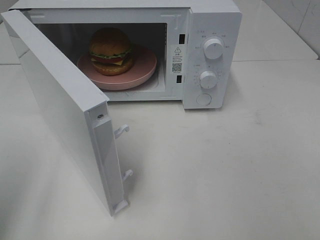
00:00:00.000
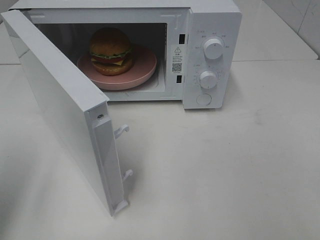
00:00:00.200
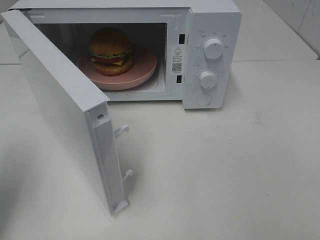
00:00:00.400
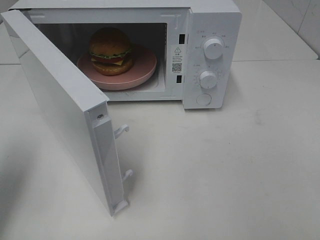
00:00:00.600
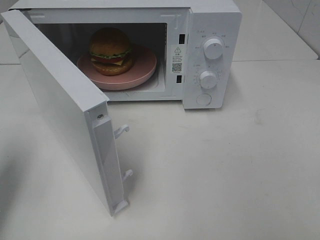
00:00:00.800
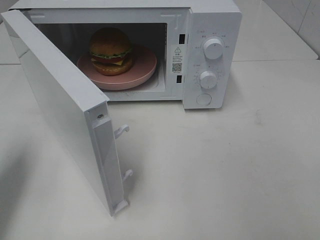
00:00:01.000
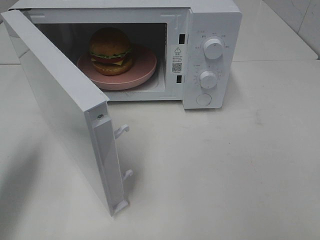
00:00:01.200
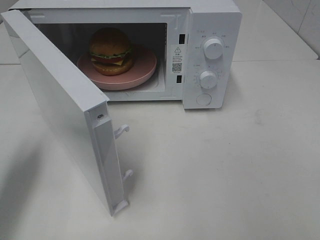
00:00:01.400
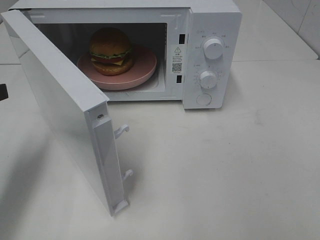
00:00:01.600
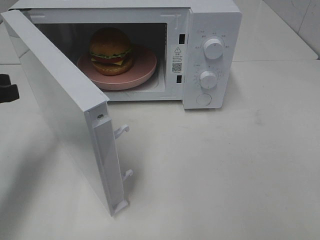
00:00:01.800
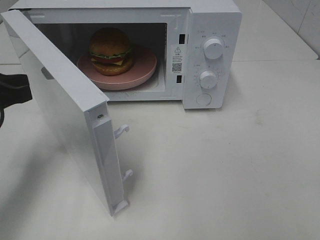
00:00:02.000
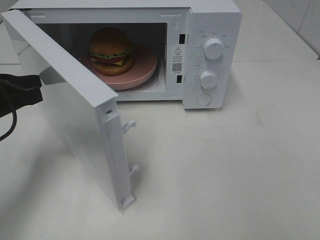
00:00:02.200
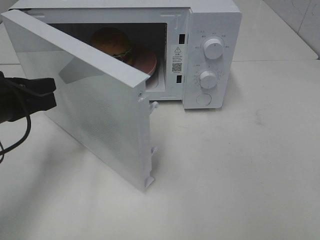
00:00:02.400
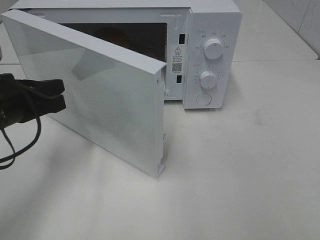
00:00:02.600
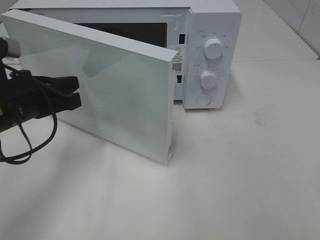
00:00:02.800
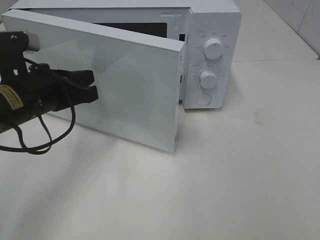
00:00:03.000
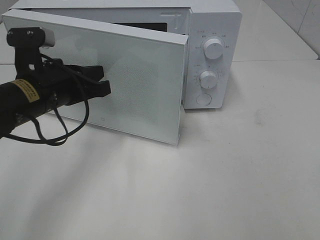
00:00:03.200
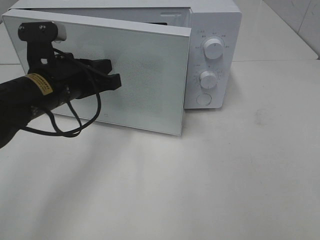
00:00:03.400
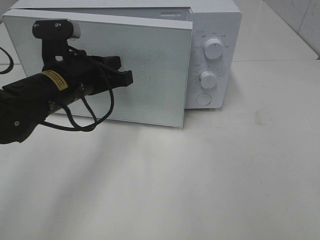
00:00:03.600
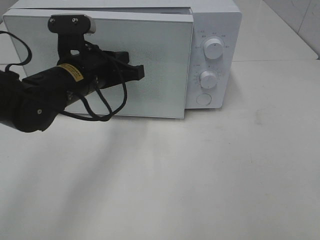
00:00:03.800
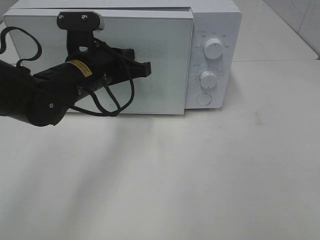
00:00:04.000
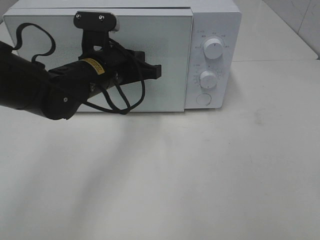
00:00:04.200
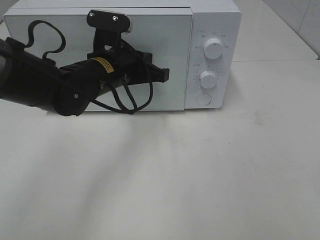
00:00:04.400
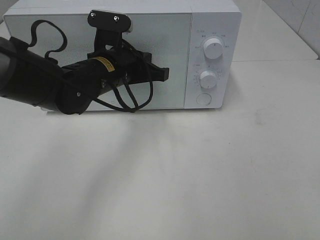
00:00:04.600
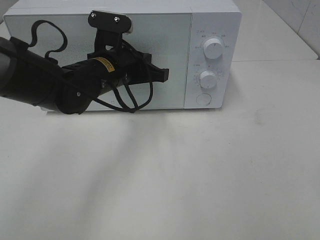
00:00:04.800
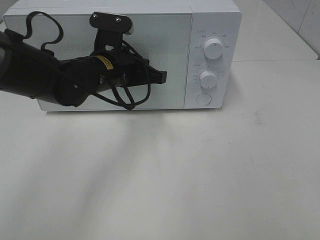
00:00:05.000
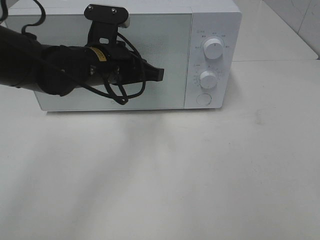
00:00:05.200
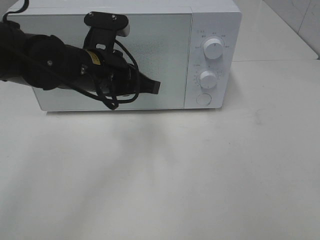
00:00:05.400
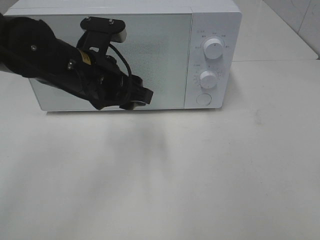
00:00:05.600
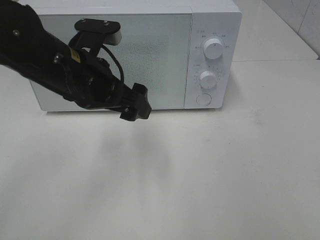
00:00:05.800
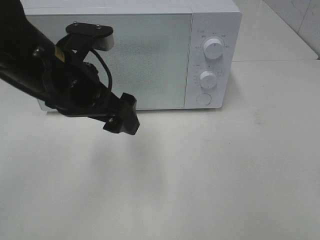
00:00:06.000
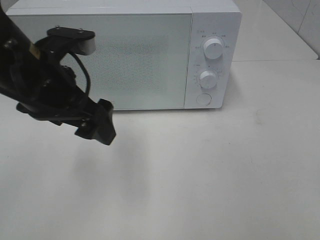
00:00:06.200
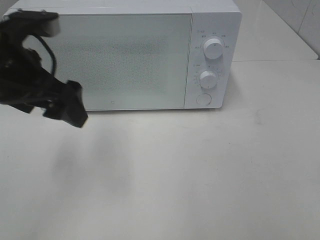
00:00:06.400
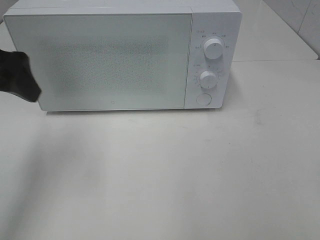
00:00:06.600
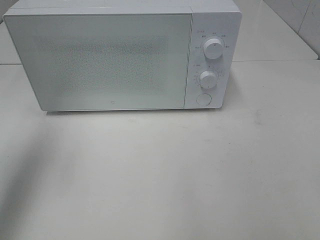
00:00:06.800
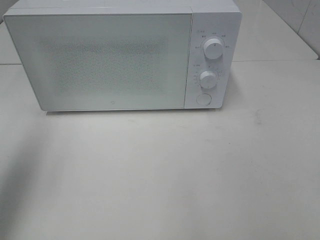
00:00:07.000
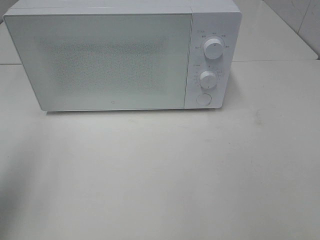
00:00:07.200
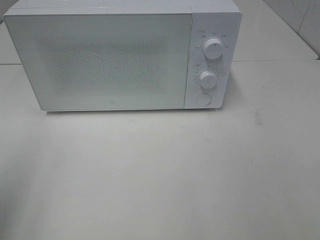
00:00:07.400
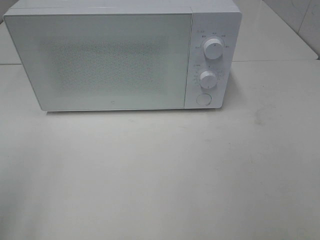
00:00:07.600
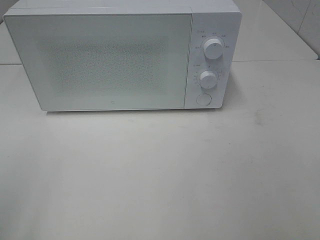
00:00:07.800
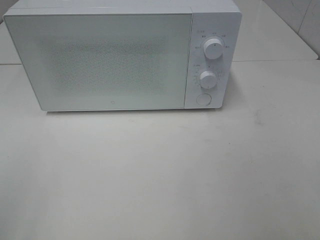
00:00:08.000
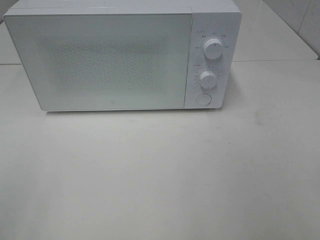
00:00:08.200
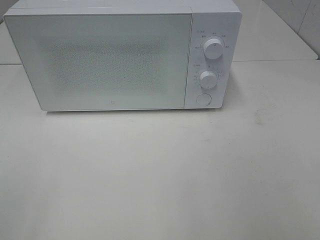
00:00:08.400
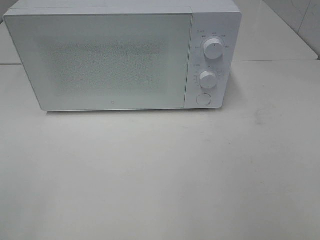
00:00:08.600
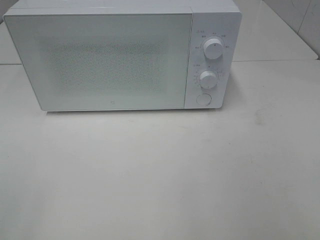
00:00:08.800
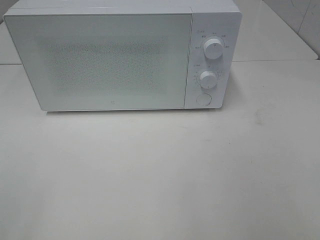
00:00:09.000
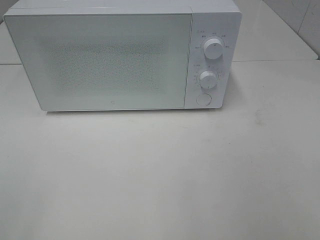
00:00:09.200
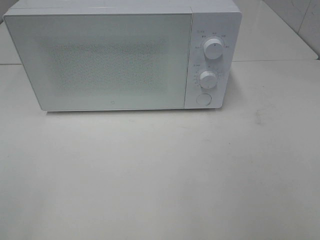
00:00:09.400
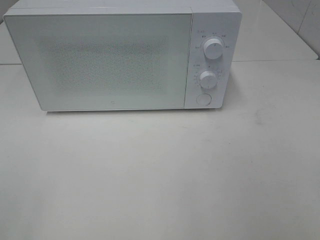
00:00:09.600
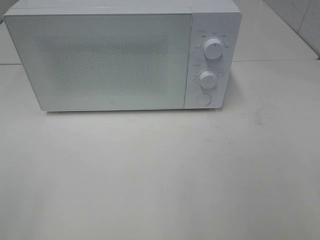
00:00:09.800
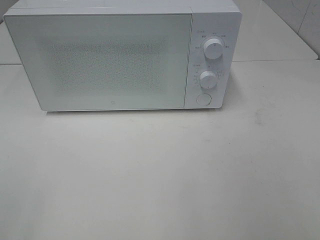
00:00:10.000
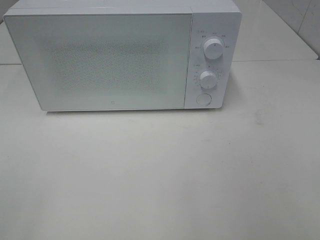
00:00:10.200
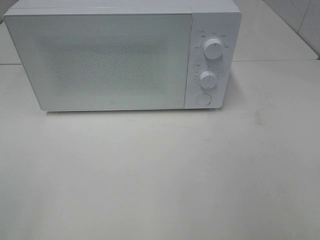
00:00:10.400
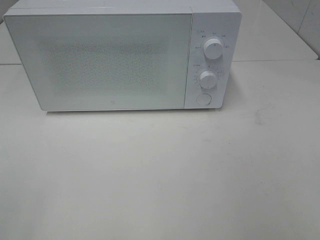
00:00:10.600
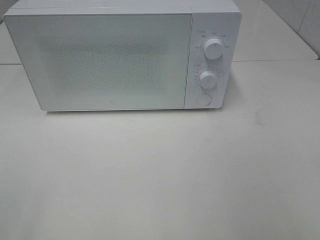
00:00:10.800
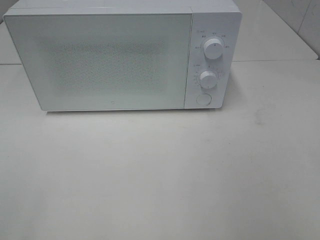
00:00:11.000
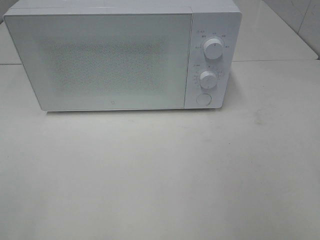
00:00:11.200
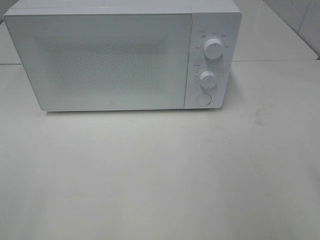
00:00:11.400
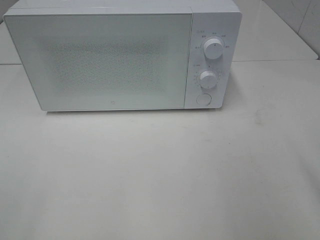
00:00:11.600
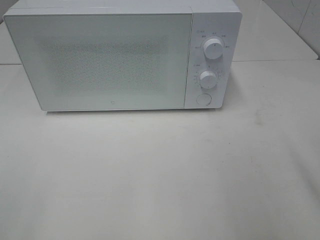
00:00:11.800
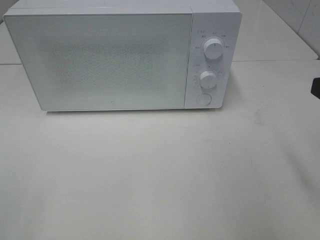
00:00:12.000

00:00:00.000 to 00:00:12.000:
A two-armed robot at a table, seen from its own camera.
Task of the whole recording: Heat the burger.
Step, 00:00:00.000 to 00:00:05.200: Left hand: close the microwave door.
00:00:00.000 to 00:00:01.600: The left gripper goes roughly 15 cm forward and downward, and closes its fingers.
00:00:01.600 to 00:00:03.000: The left gripper shifts some 10 cm to the right.
00:00:03.000 to 00:00:04.400: The left gripper shifts roughly 15 cm to the right and forward.
00:00:04.400 to 00:00:06.000: The left gripper heads backward and upward, covering roughly 10 cm, and opens up.
00:00:06.000 to 00:00:07.600: The left gripper shifts about 25 cm to the left and backward.
00:00:09.000 to 00:00:10.400: Neither gripper changes place.

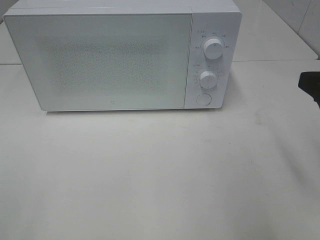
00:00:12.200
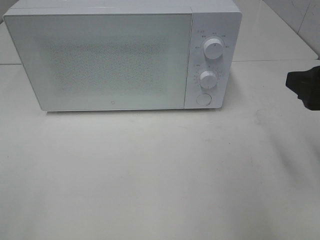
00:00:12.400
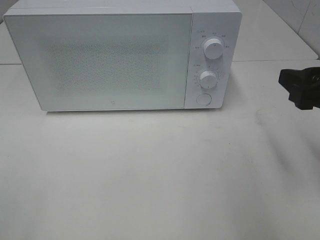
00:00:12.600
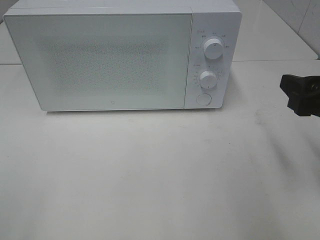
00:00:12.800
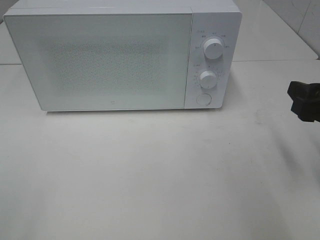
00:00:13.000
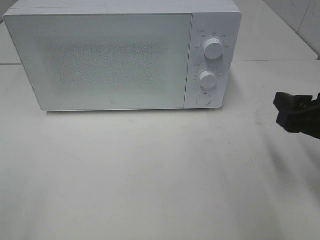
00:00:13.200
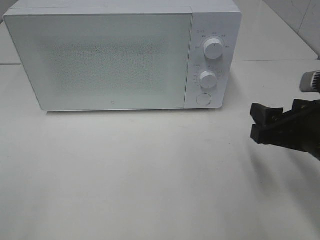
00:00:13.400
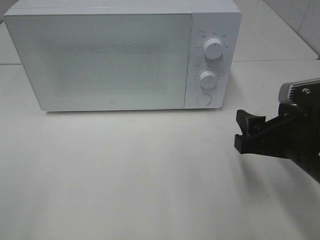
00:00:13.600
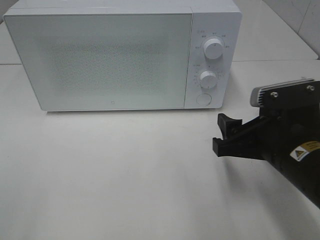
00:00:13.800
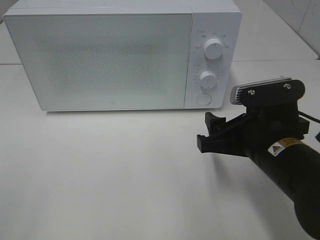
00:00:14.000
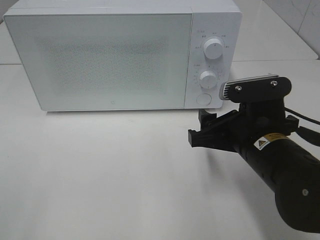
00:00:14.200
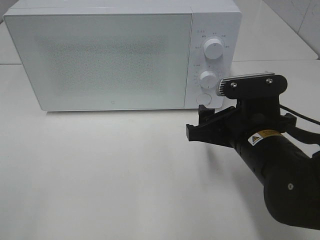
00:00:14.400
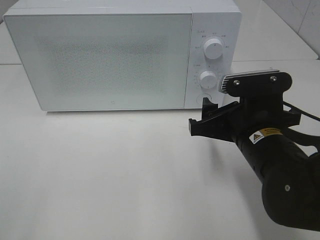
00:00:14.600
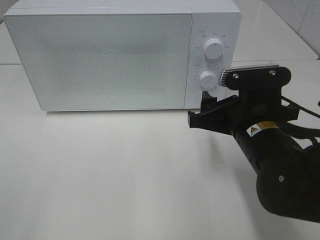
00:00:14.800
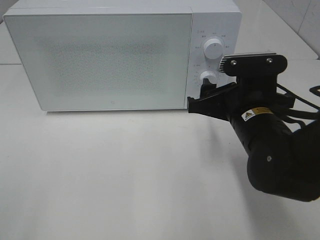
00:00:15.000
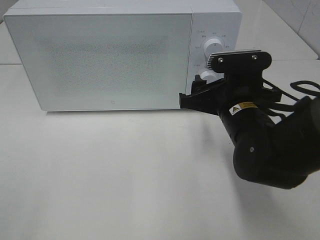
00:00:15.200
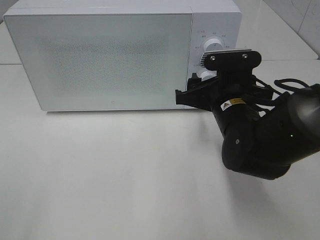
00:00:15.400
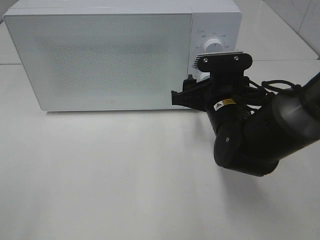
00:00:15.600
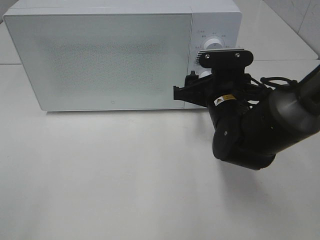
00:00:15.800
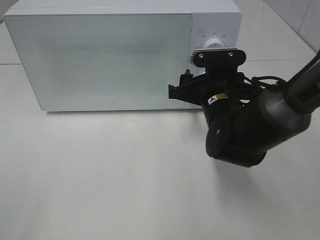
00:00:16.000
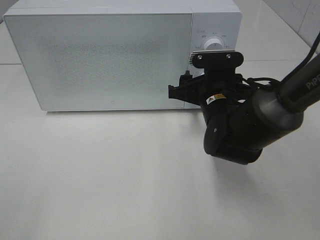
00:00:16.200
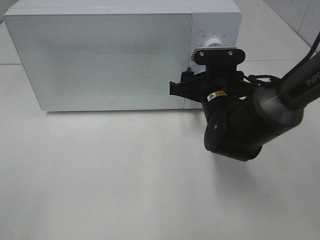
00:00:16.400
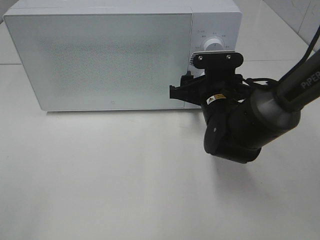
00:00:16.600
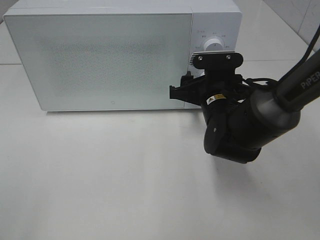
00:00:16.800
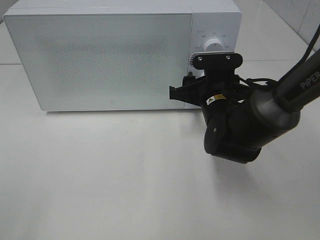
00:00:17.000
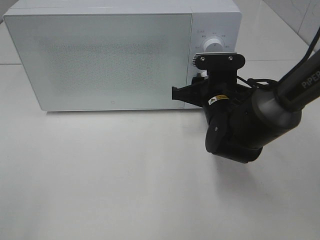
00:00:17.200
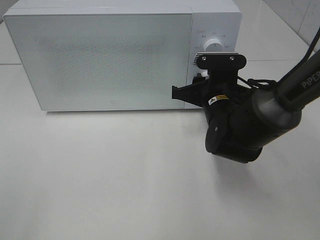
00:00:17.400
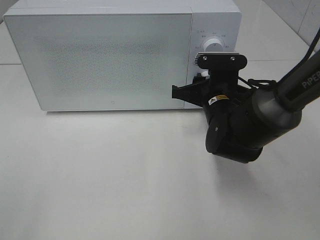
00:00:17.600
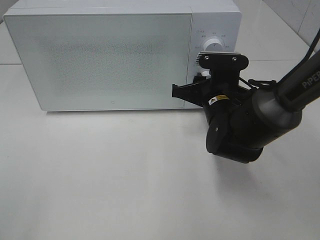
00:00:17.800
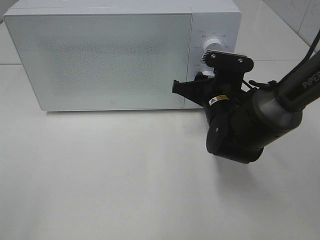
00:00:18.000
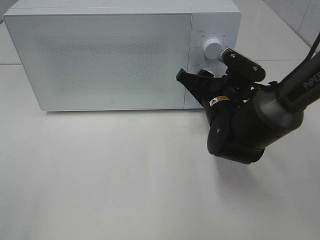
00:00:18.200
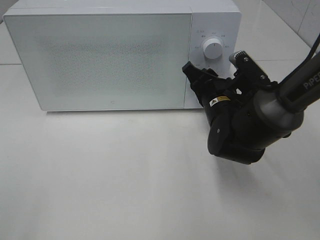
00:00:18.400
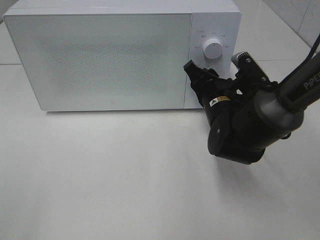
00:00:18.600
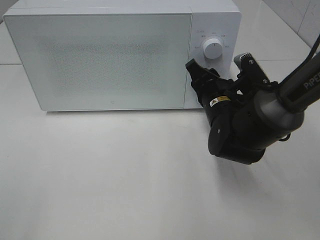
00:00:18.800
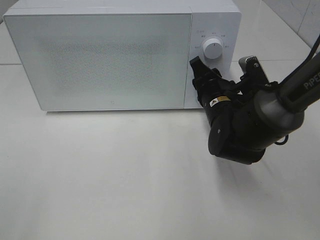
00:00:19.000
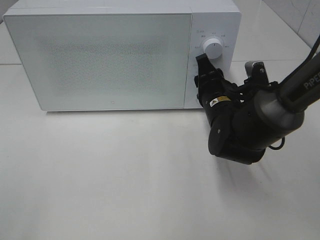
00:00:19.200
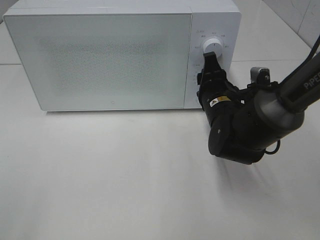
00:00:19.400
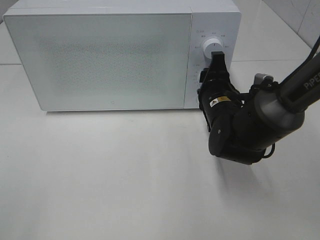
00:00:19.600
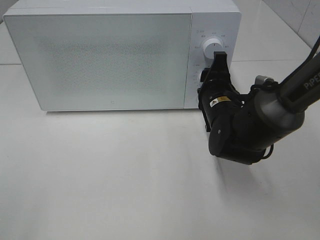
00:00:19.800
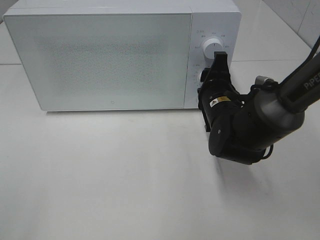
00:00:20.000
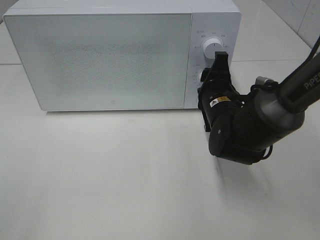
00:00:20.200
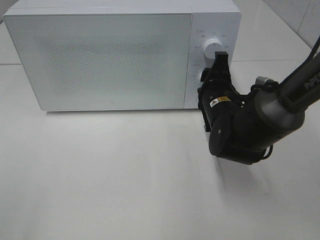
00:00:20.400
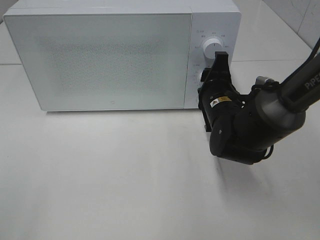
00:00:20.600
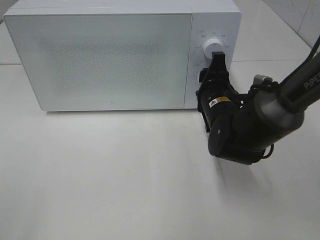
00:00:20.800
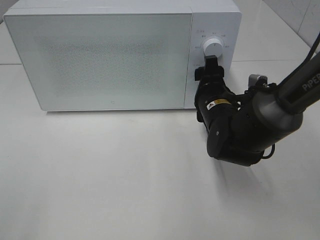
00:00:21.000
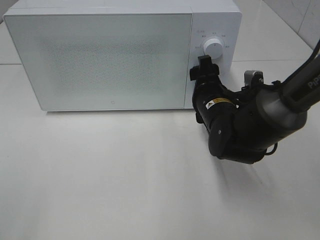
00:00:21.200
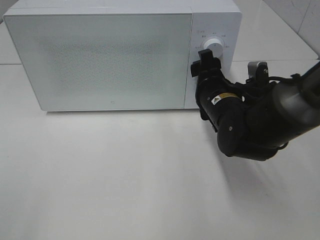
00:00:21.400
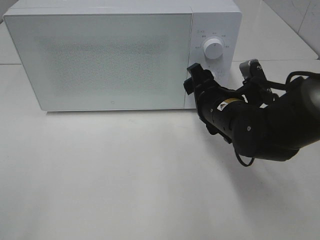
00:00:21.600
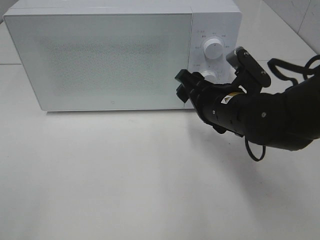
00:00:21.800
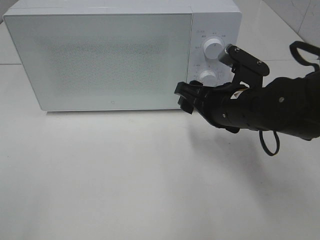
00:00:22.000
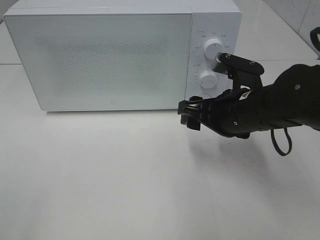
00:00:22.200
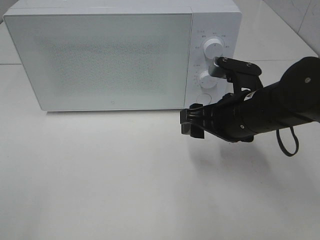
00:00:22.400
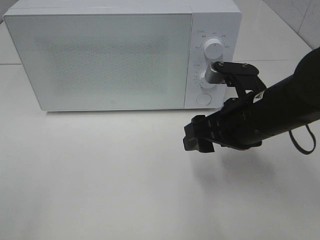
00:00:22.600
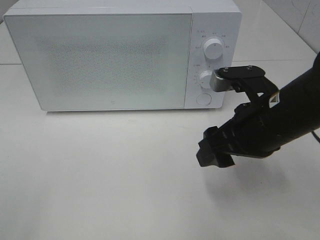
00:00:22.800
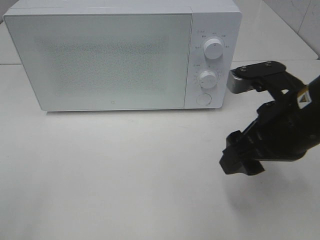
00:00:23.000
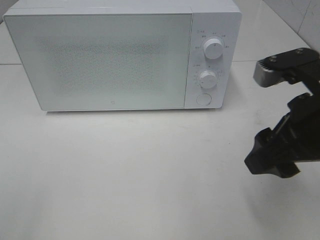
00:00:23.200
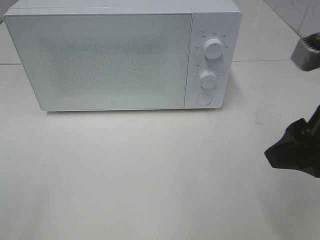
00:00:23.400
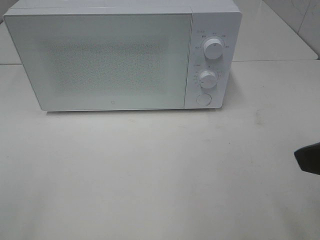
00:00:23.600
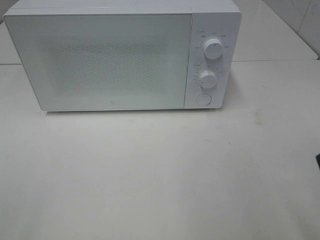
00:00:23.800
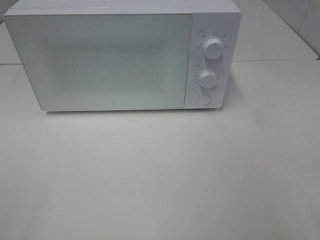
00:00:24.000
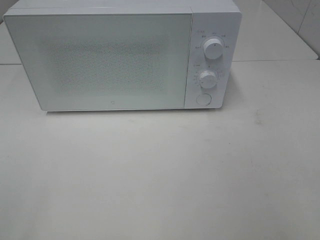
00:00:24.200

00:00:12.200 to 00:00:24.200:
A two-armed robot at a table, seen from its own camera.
Task of the whole recording: Heat the burger.
Step, 00:00:12.200 to 00:00:21.000: Right hand: twist timer button.
00:00:12.200 to 00:00:13.800: The right gripper goes some 15 cm downward and to the left.
00:00:13.800 to 00:00:15.200: The right gripper is displaced forward by approximately 10 cm.
00:00:15.200 to 00:00:16.600: The right gripper shifts about 5 cm forward.
00:00:16.600 to 00:00:18.200: The right gripper closes its fingers.
00:00:19.800 to 00:00:21.200: The right gripper opens.
00:00:21.200 to 00:00:22.600: The right gripper is displaced backward and upward by about 10 cm.
00:00:22.600 to 00:00:24.200: The right gripper travels backward, to the right and upward by roughly 25 cm.
